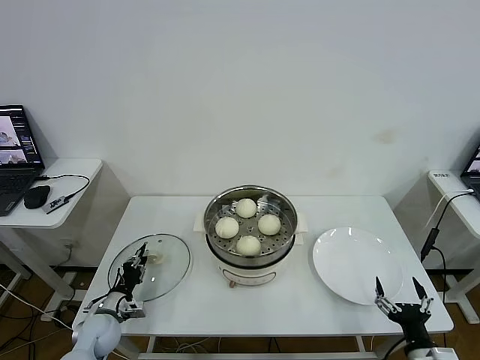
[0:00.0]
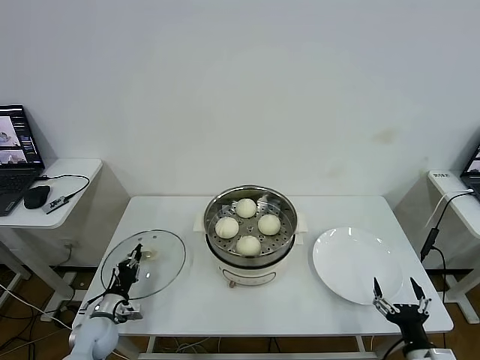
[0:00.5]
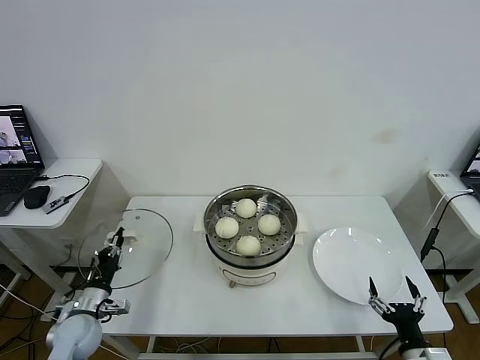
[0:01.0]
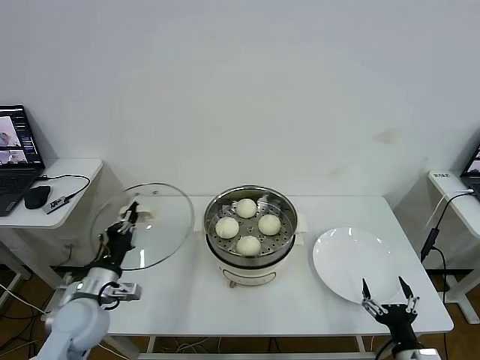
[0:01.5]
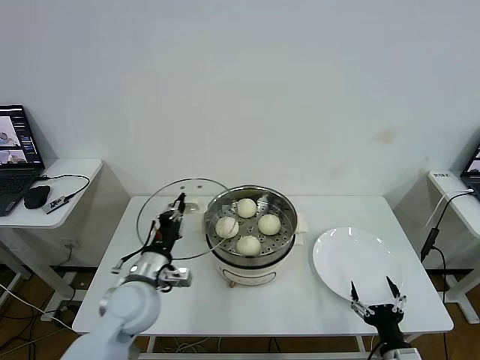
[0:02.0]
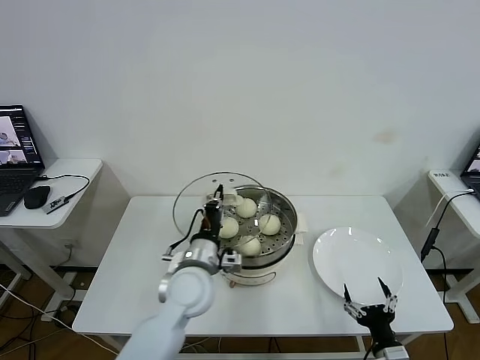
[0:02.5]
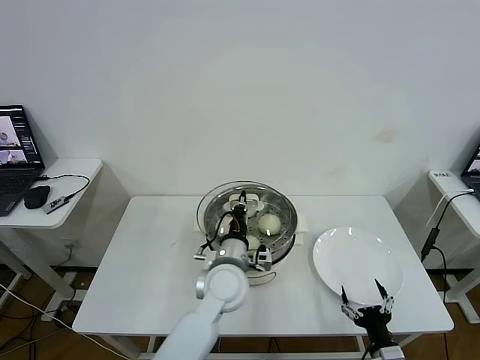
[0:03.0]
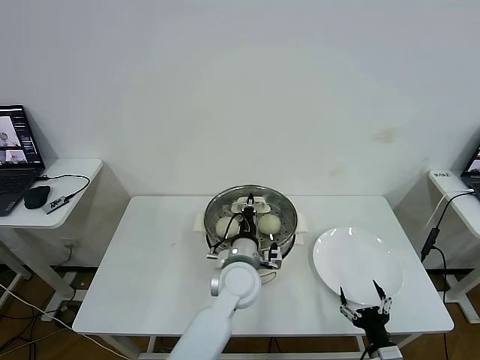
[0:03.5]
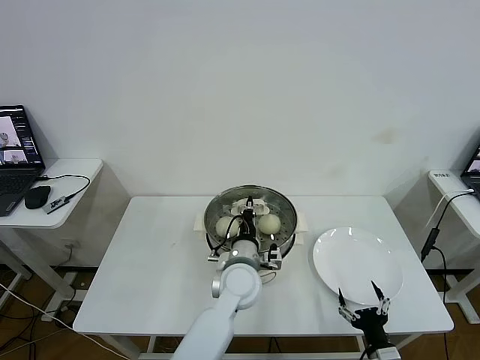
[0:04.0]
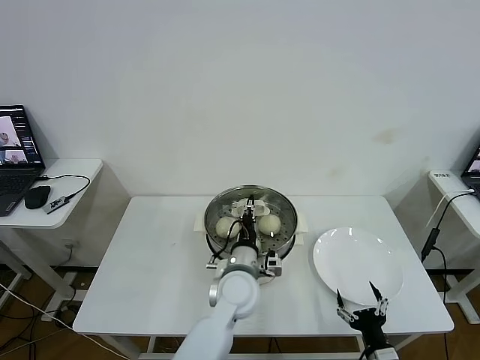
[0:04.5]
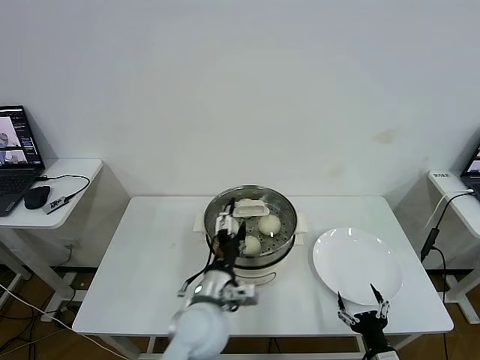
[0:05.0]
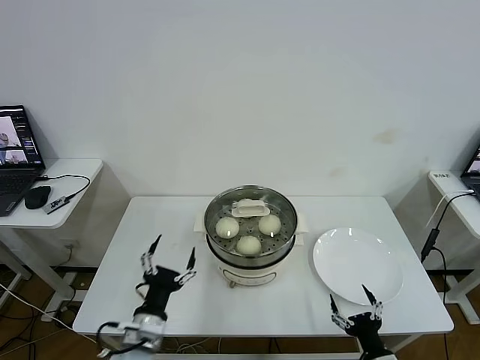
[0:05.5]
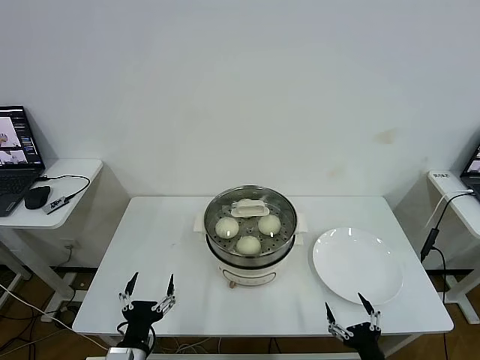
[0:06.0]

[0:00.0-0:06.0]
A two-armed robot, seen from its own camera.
Task of the whole recording: take steamed baozi put them in steamer then cover it.
Step, 0:00.5 to 0:04.5: Place the pot lid on the steamer with left gripper.
0:00.0 to 0:02.0: The left gripper travels upward and to the right by roughly 25 cm, and closes its fingers.
0:02.0 to 0:04.0: The left gripper moves to the right, roughly 20 cm.
0:04.0 to 0:06.0: The left gripper moves to the left and backward, some 30 cm, and opens its fingers.
